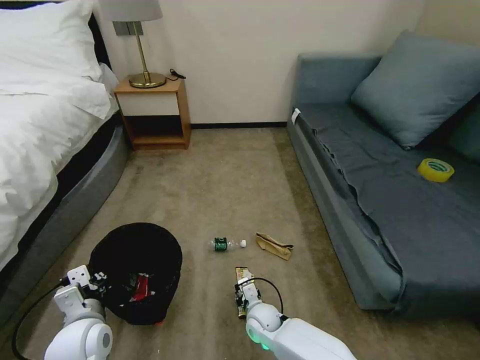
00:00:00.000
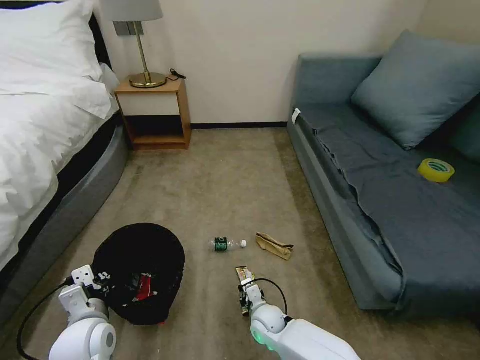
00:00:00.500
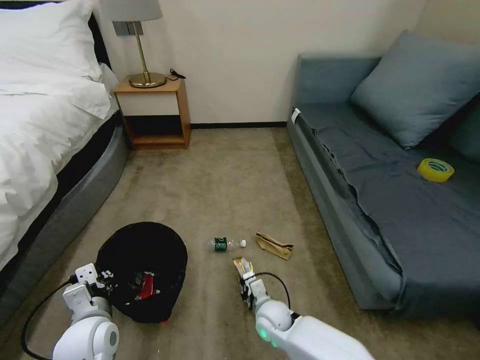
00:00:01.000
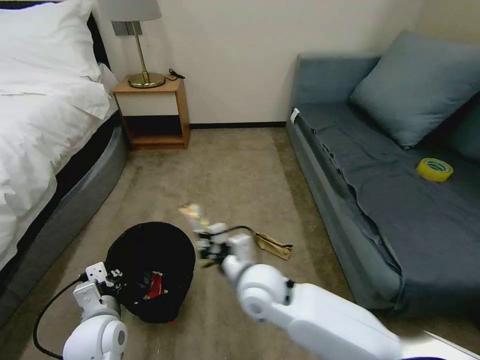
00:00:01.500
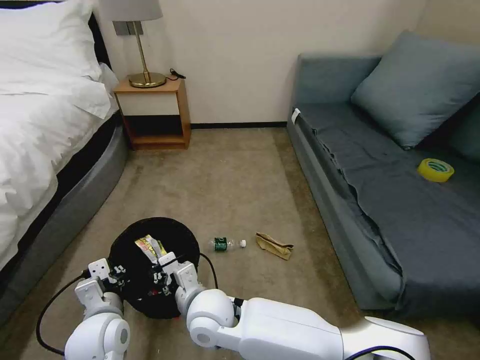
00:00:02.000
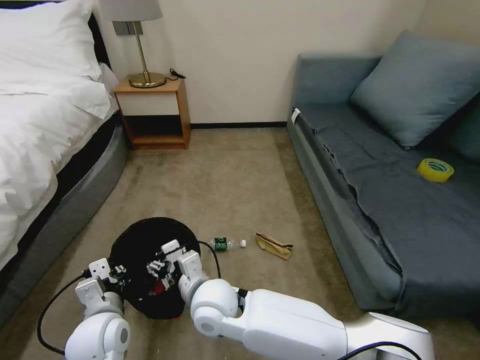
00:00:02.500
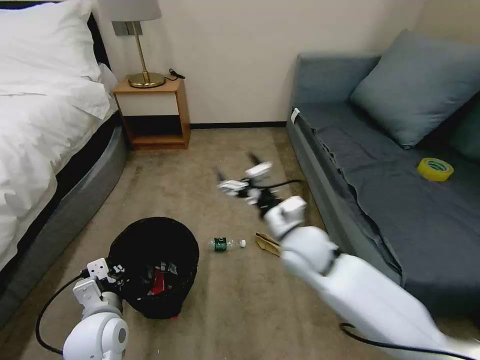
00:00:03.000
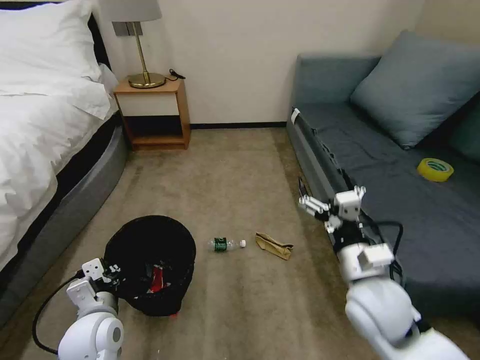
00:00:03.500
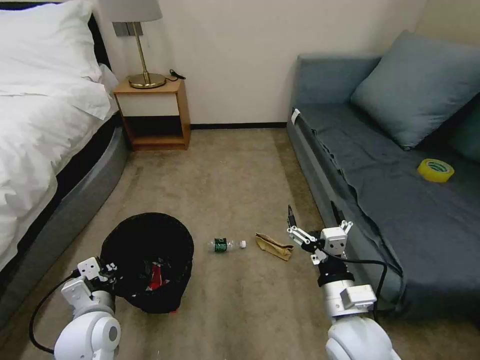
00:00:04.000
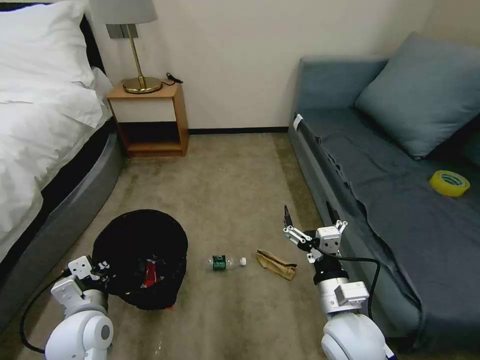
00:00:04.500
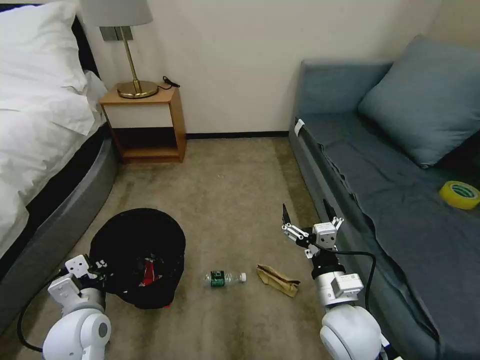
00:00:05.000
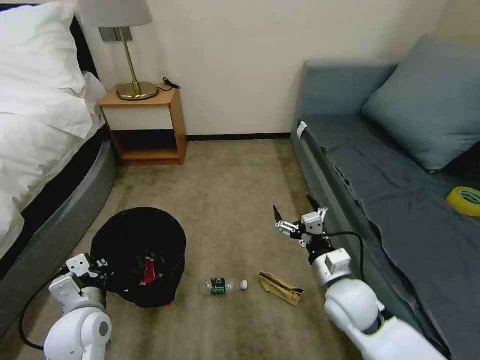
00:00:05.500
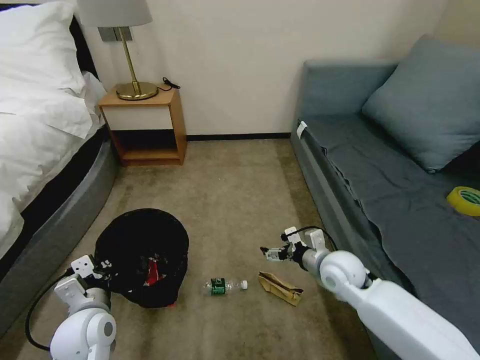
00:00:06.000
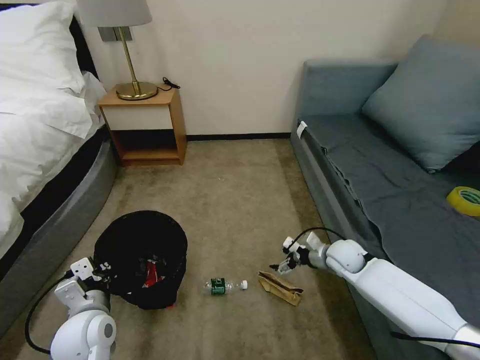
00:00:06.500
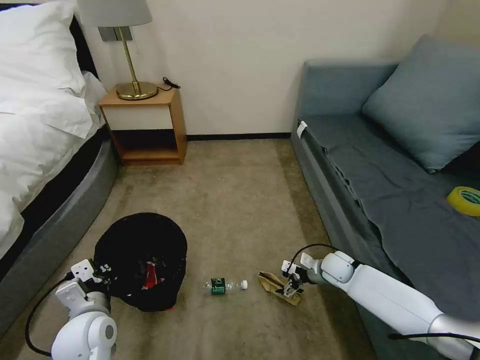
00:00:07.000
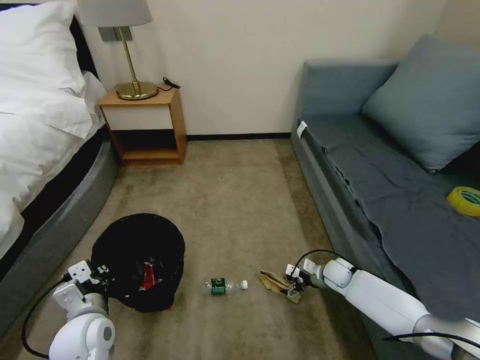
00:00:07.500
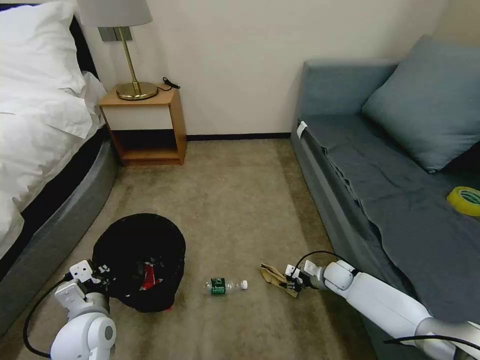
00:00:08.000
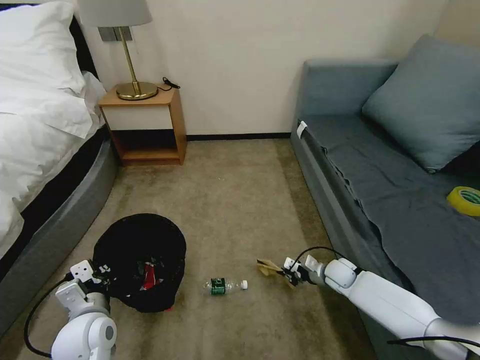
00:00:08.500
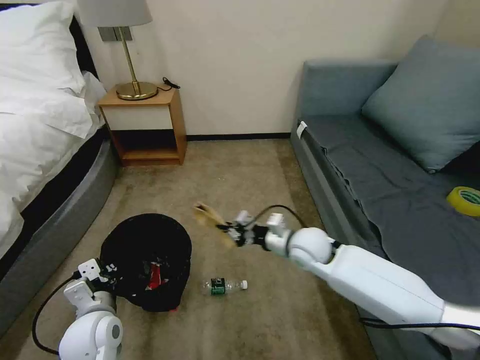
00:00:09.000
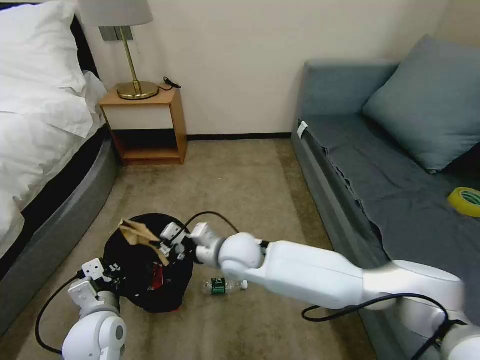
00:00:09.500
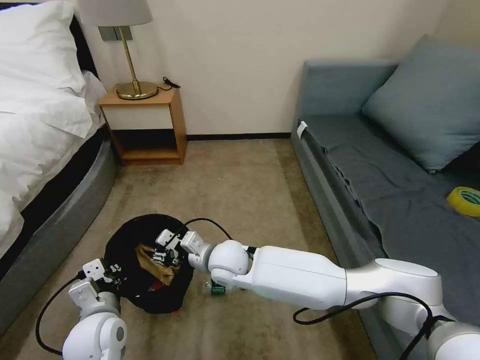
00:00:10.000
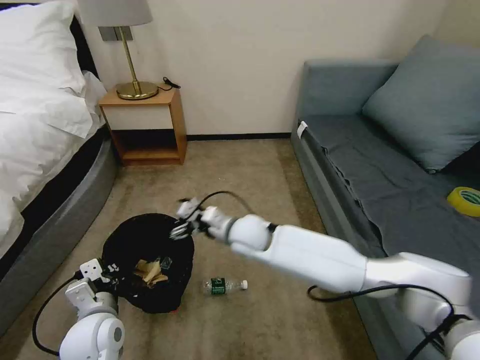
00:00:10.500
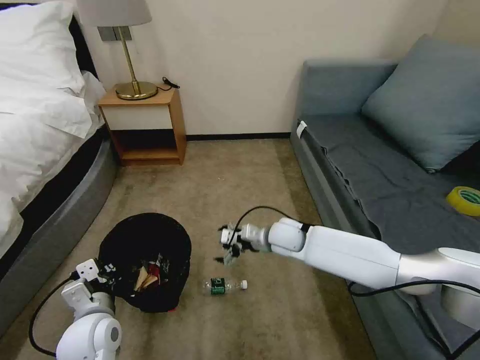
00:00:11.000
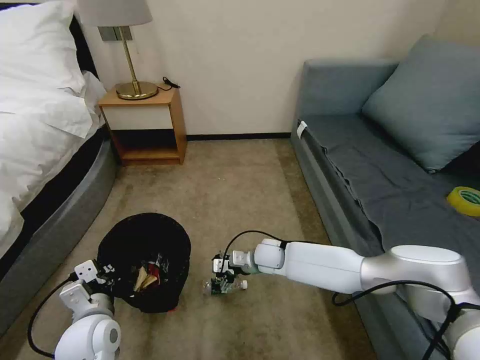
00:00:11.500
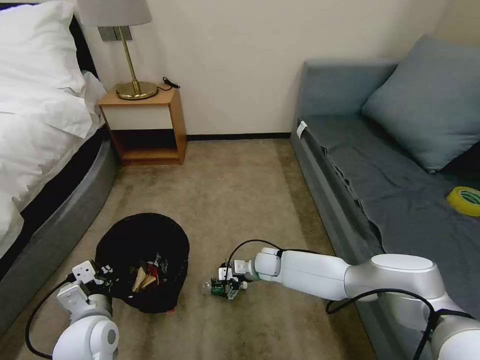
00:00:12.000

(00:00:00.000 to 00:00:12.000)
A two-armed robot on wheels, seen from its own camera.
Task of the whole recording: Pick up the trash bin, then pick up the garbage on the floor and place it into the trash bin.
00:00:00.000 - 00:00:02.000: The right gripper travels upward and to the left by roughly 25 cm.
00:00:02.000 - 00:00:04.000: The right gripper is displaced to the right by roughly 25 cm, and opens up.
00:00:04.000 - 00:00:06.000: The right gripper travels forward by some 15 cm.
00:00:06.000 - 00:00:08.000: The right gripper moves downward and to the right, approximately 20 cm, and closes.
00:00:08.000 - 00:00:10.000: The right gripper moves to the left and upward, some 40 cm, and closes, then opens again.
00:00:10.000 - 00:00:12.000: The right gripper travels downward, to the right and forward by approximately 20 cm, and opens up.

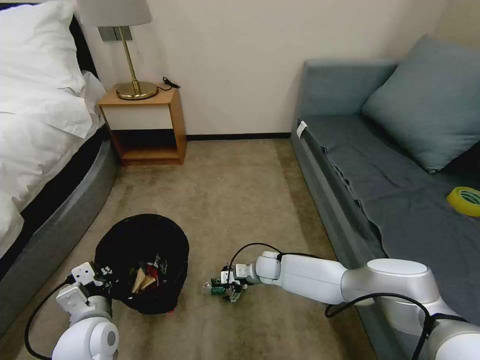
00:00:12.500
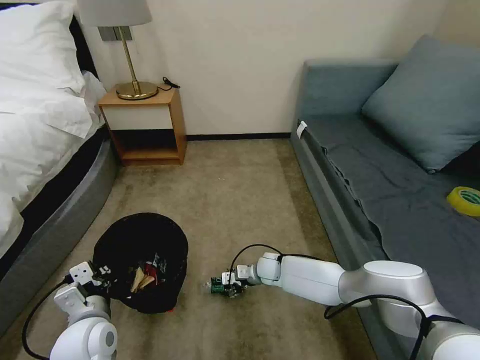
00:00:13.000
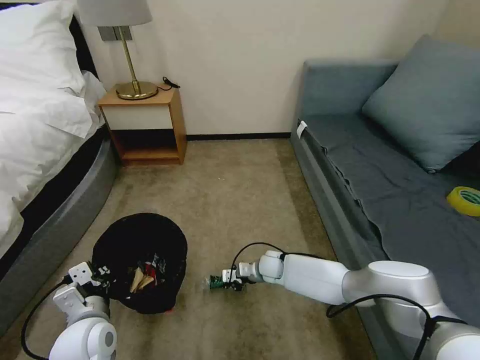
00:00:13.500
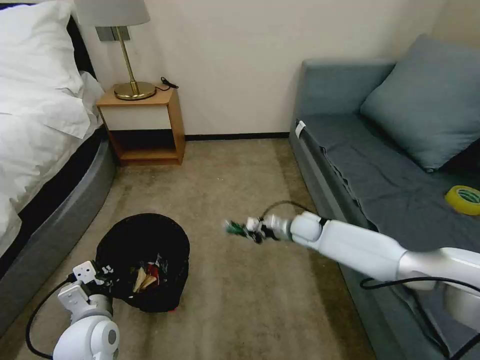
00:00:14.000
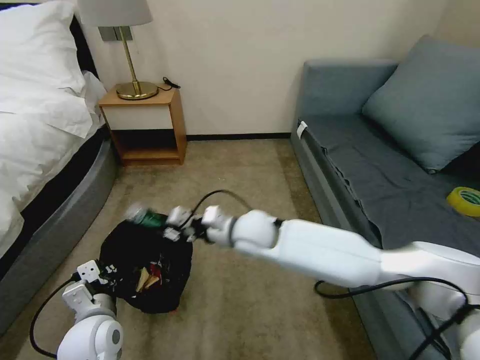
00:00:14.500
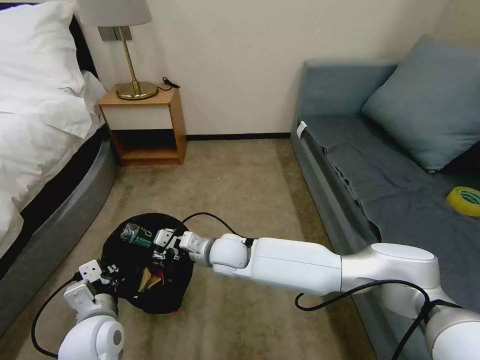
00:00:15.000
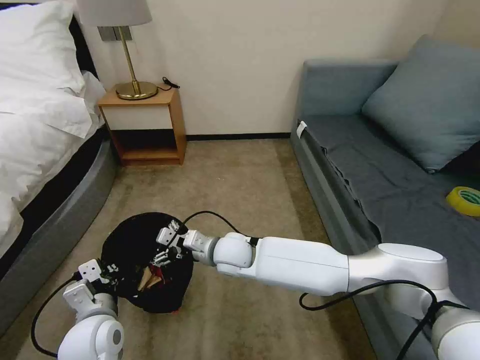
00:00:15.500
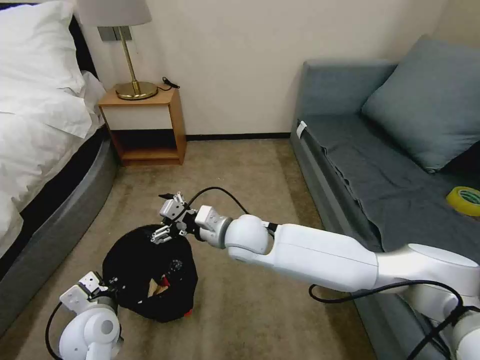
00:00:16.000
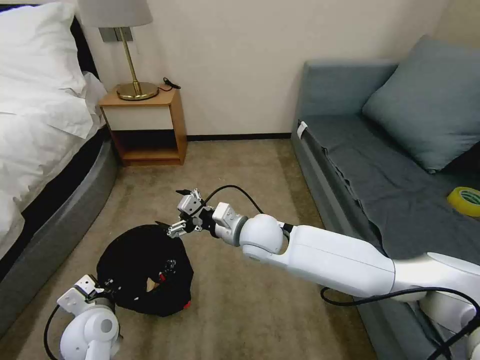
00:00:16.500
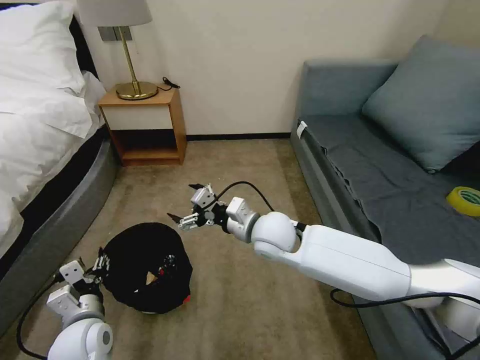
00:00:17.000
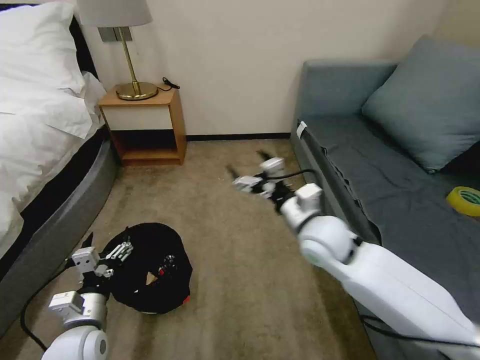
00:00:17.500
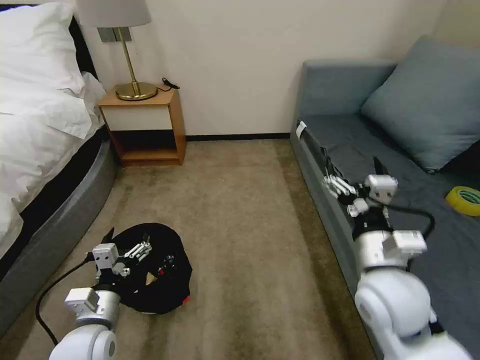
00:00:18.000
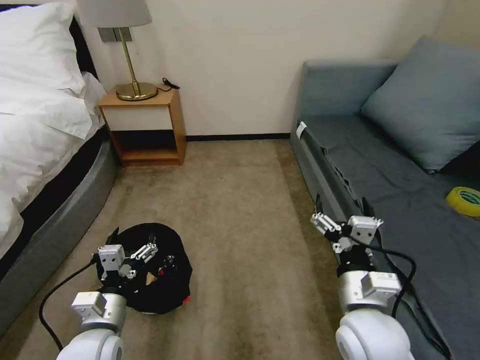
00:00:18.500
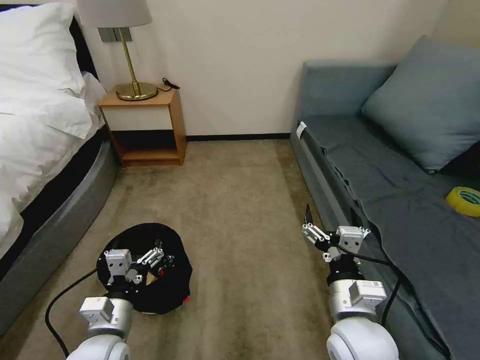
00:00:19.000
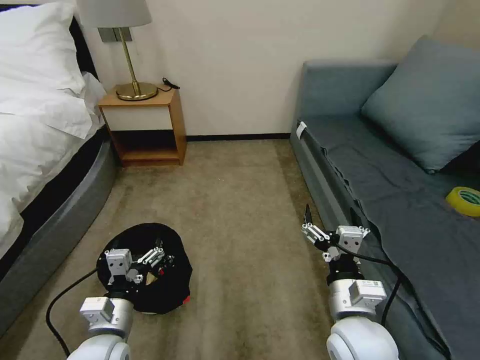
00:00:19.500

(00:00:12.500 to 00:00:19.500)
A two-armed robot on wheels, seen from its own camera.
Task of the whole recording: Pick up the trash bin, then pick up the garbage on the floor and place it into the trash bin.
00:00:12.500 - 00:00:14.500: The right gripper shifts about 25 cm upward, and closes.
00:00:14.500 - 00:00:16.000: The right gripper travels downward and back again, roughly 5 cm each way, and opens up.
00:00:16.000 - 00:00:17.500: The right gripper travels to the right by roughly 15 cm, while the left gripper opens.
00:00:17.500 - 00:00:19.500: The left gripper heads to the right, covering some 5 cm. Meanwhile the right gripper shifts about 15 cm backward.

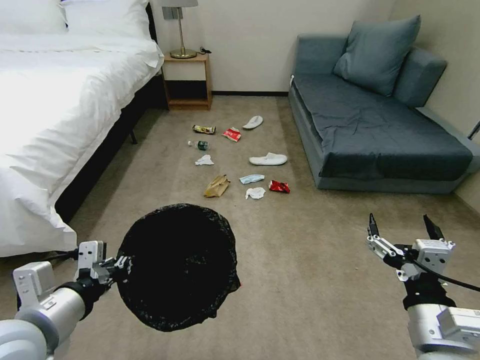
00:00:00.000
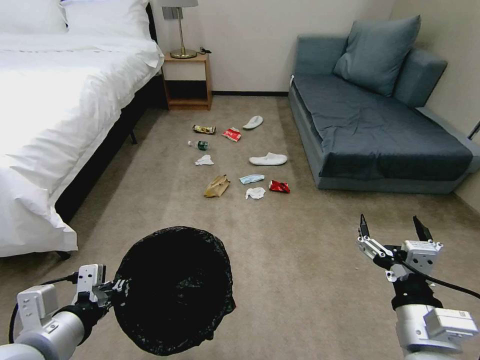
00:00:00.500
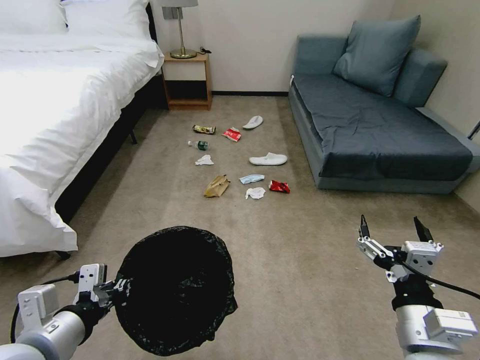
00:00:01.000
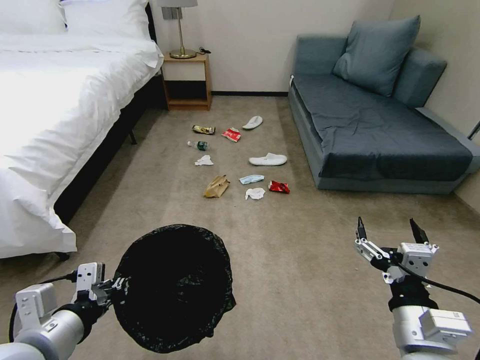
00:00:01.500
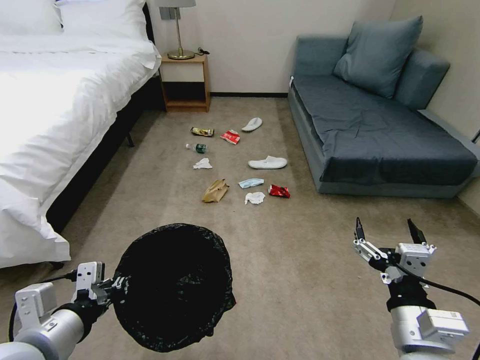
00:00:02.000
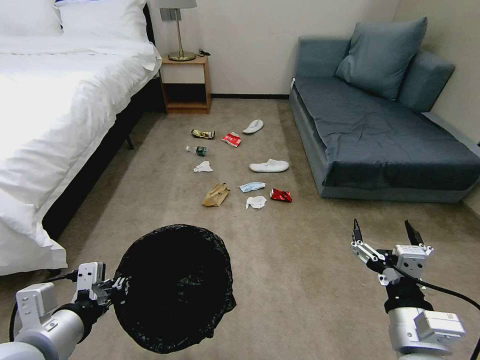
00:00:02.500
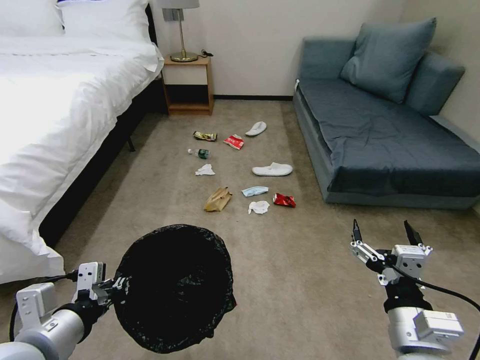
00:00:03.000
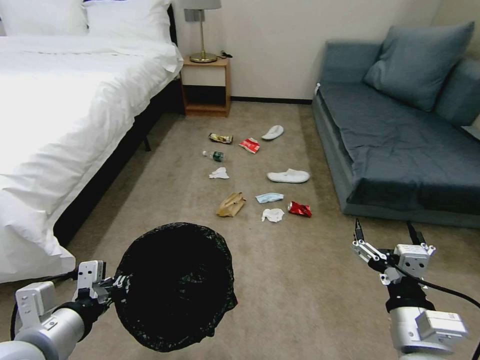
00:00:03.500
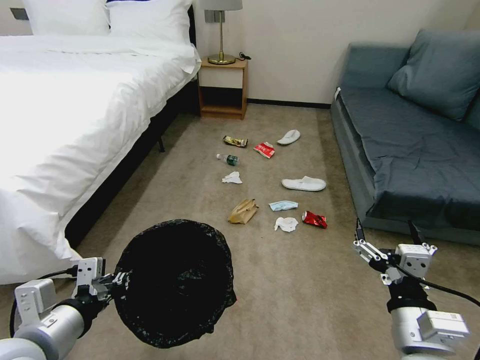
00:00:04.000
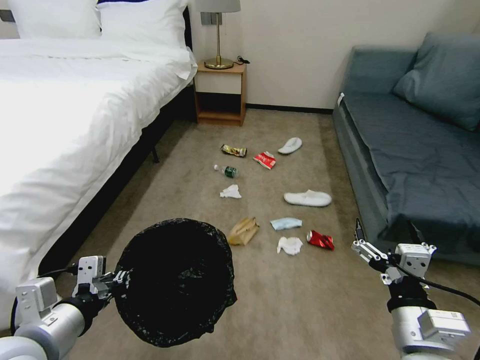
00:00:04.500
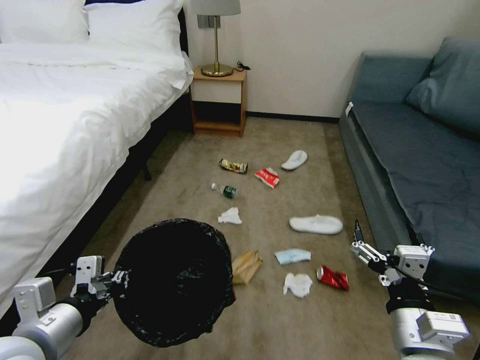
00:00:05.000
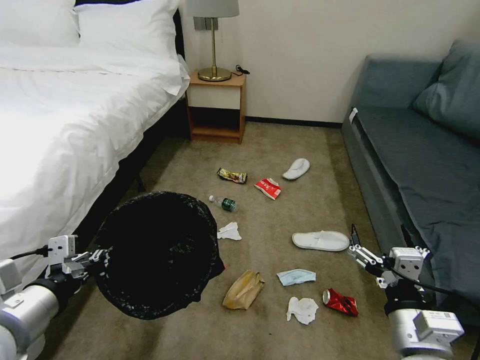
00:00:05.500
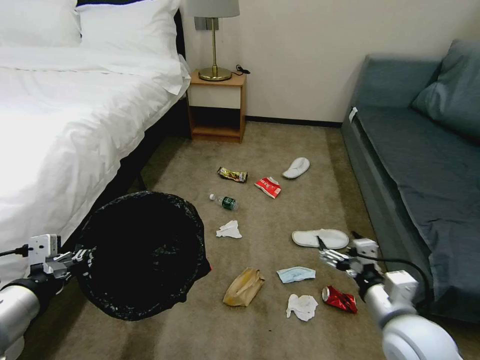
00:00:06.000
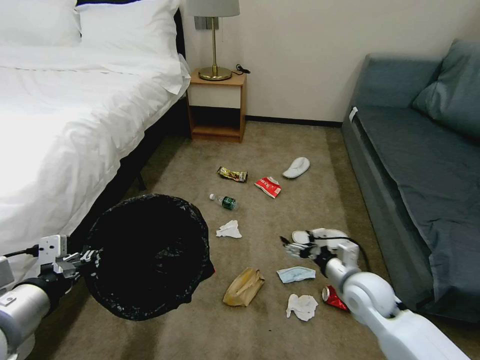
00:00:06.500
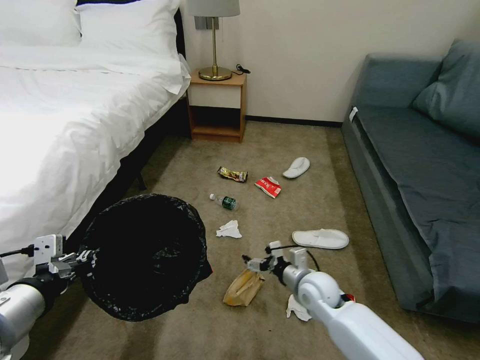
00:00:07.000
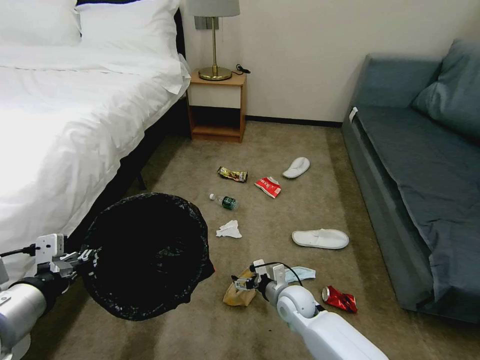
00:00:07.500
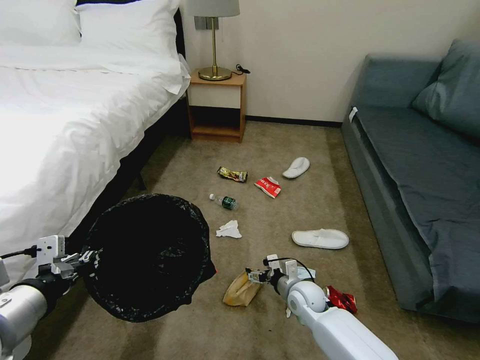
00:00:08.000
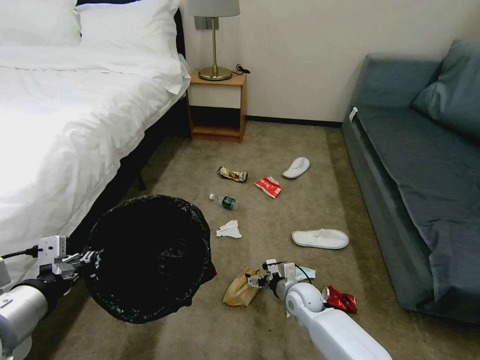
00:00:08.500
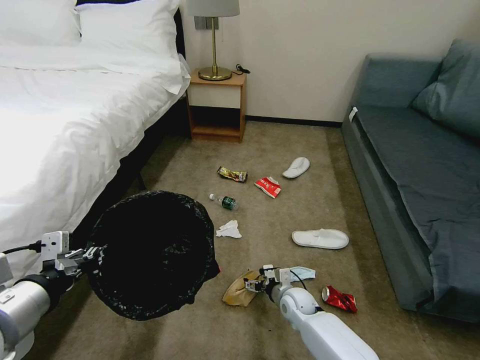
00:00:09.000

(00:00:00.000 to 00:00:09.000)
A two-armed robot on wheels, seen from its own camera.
Task of the whole recording: Pick up the trash bin, then pick up the garbage on the floor and place it into the trash bin.
00:00:04.500 - 00:00:07.000: The right gripper moves forward and downward, roughly 25 cm; the left gripper ends up approximately 5 cm from where it was.
00:00:07.000 - 00:00:09.000: The right gripper shifts some 15 cm downward.
